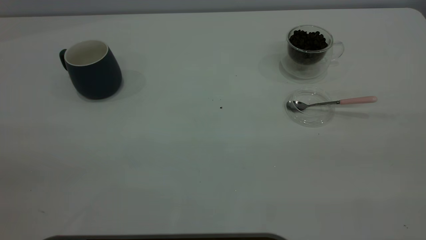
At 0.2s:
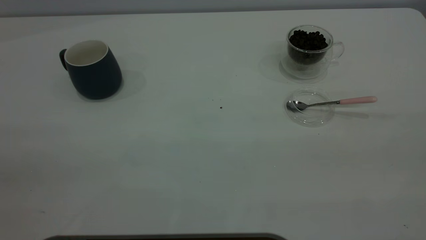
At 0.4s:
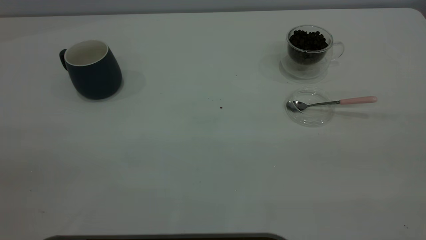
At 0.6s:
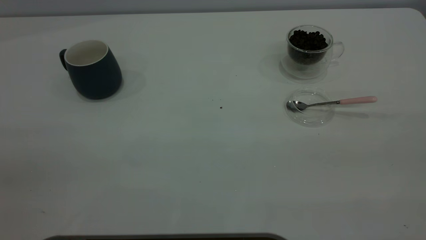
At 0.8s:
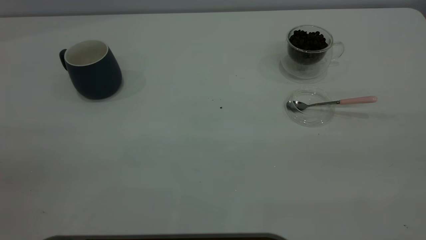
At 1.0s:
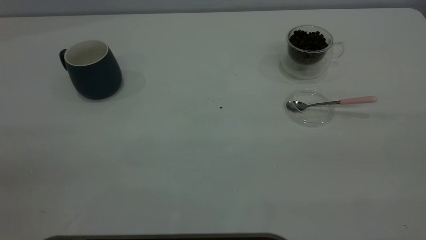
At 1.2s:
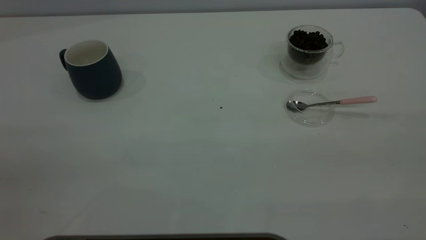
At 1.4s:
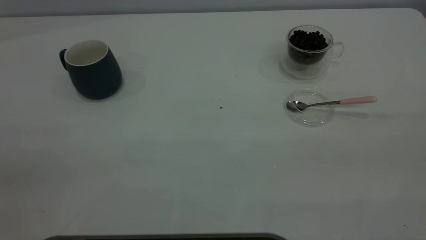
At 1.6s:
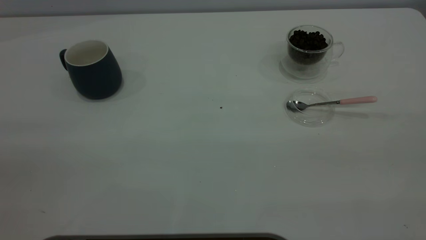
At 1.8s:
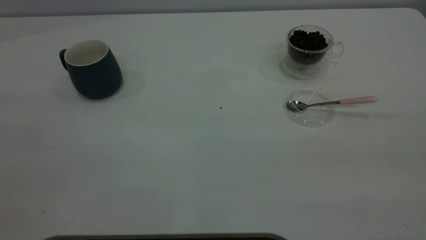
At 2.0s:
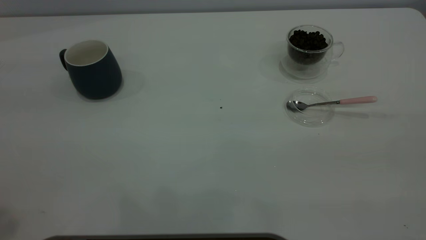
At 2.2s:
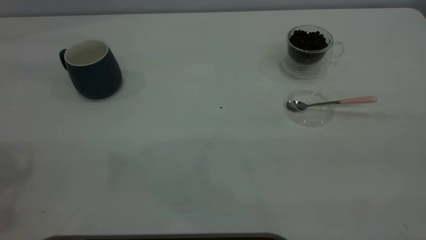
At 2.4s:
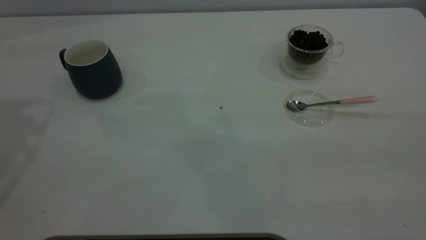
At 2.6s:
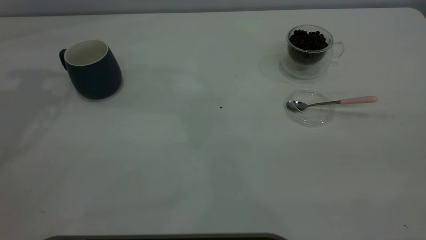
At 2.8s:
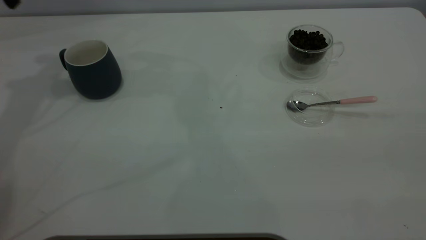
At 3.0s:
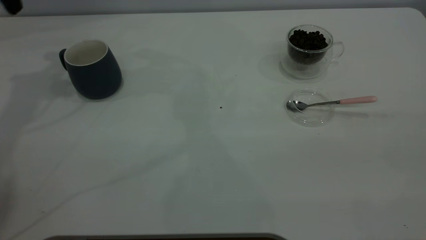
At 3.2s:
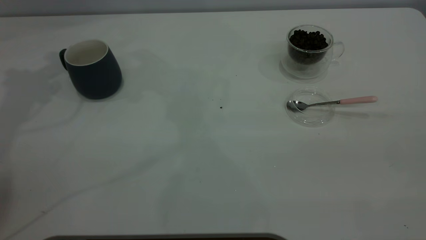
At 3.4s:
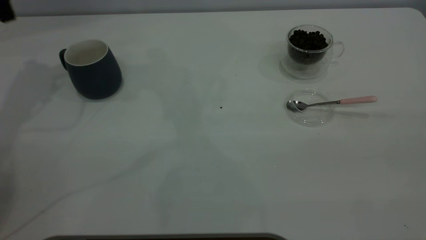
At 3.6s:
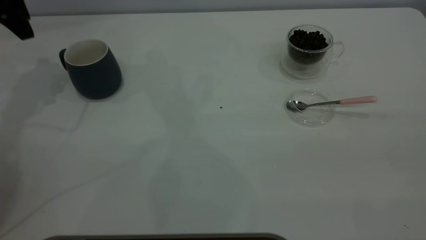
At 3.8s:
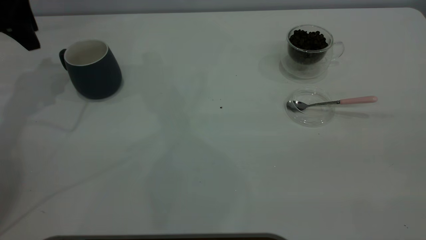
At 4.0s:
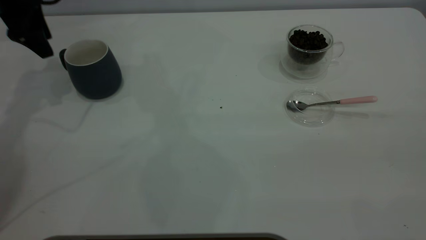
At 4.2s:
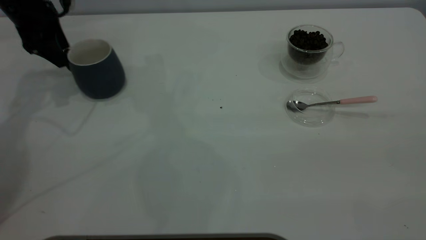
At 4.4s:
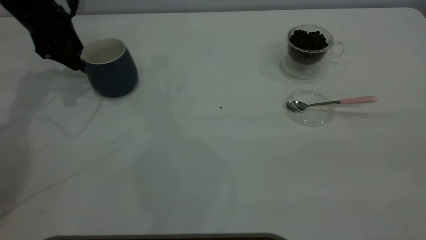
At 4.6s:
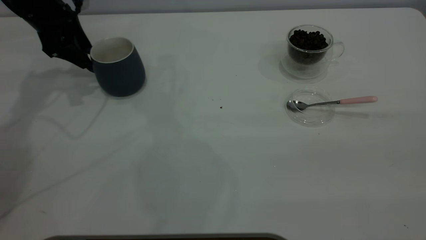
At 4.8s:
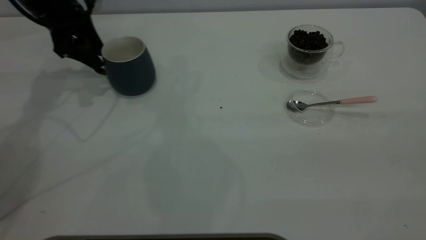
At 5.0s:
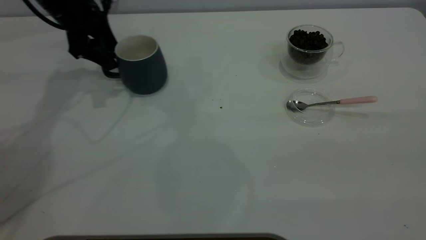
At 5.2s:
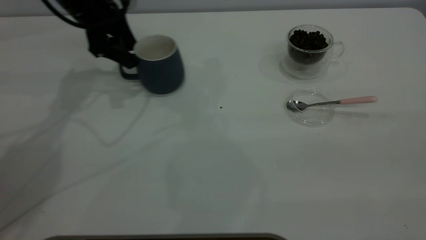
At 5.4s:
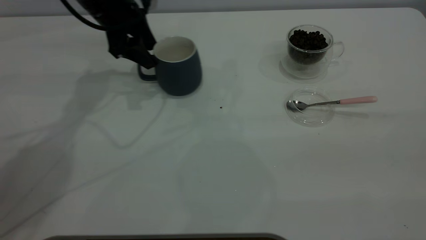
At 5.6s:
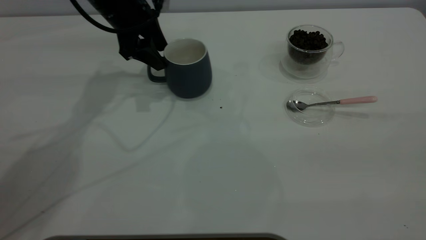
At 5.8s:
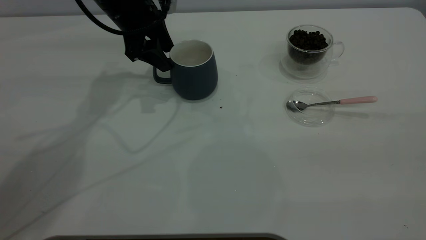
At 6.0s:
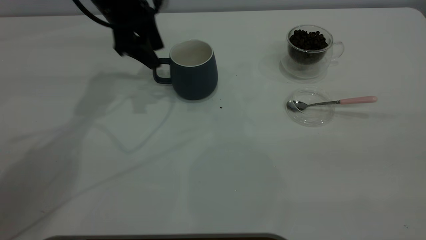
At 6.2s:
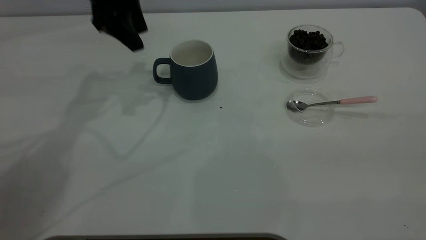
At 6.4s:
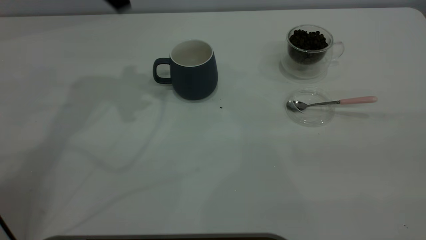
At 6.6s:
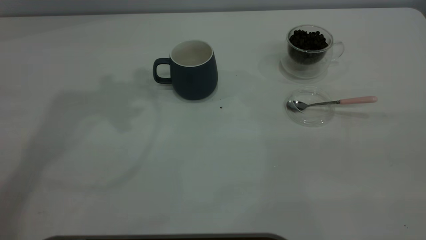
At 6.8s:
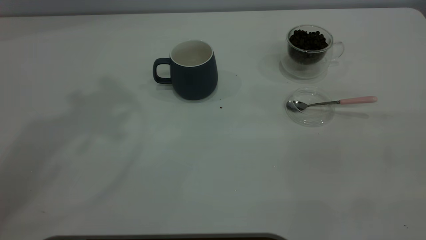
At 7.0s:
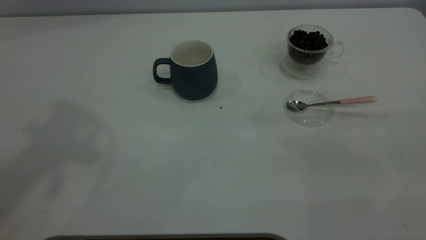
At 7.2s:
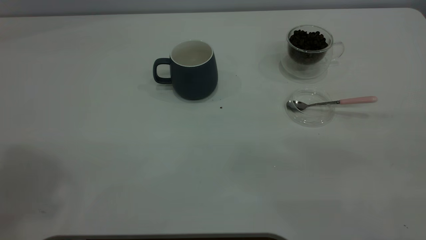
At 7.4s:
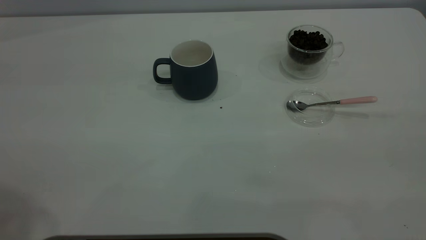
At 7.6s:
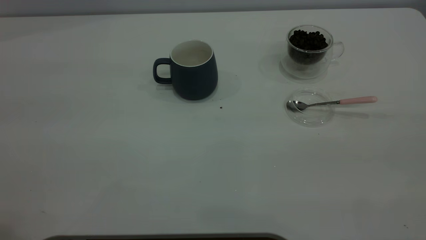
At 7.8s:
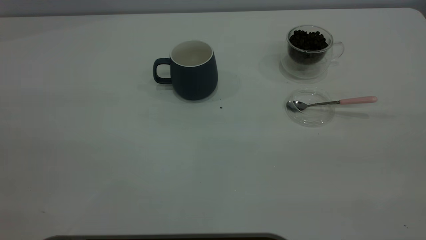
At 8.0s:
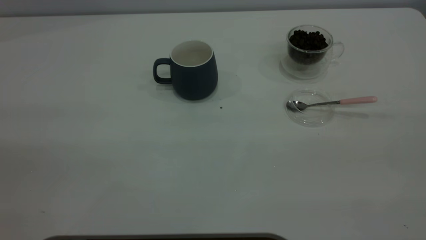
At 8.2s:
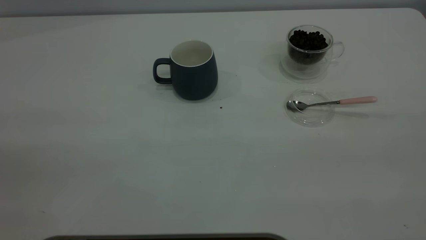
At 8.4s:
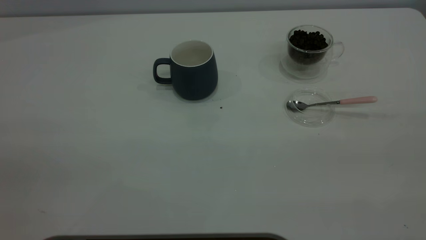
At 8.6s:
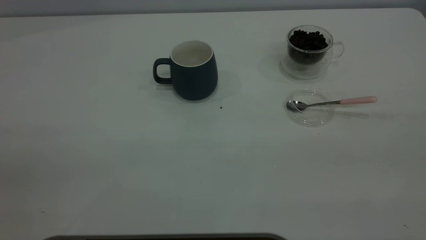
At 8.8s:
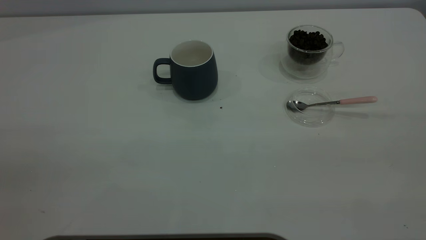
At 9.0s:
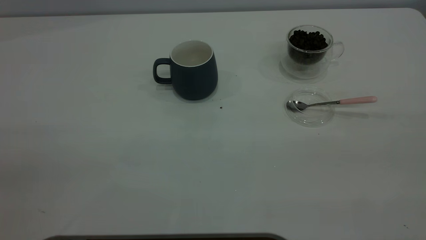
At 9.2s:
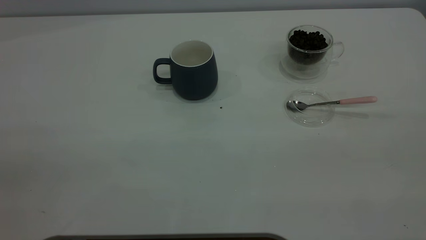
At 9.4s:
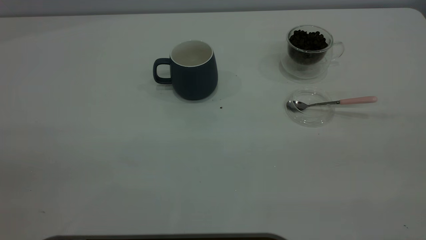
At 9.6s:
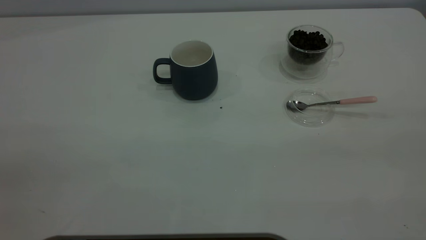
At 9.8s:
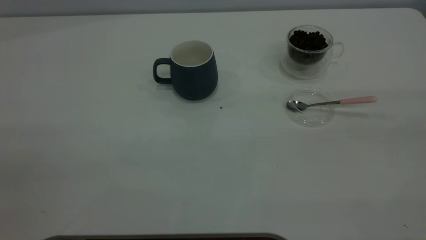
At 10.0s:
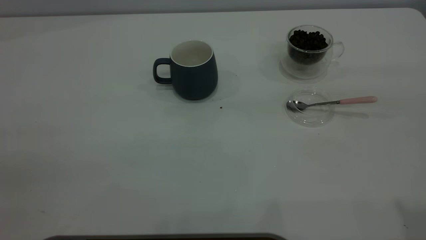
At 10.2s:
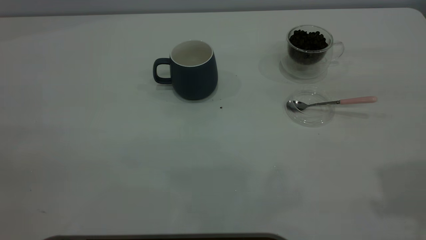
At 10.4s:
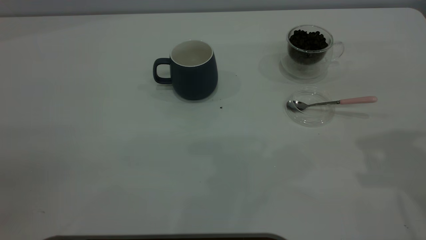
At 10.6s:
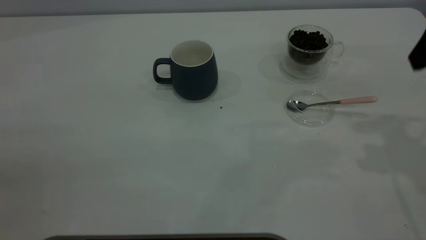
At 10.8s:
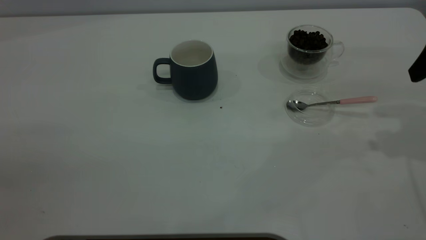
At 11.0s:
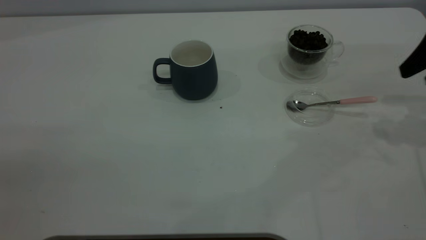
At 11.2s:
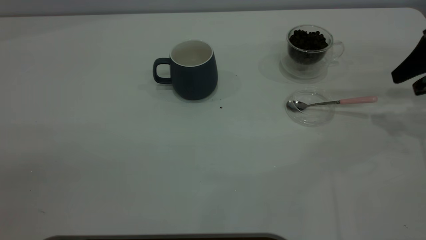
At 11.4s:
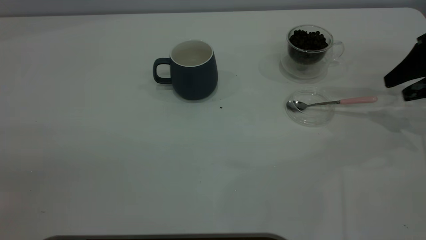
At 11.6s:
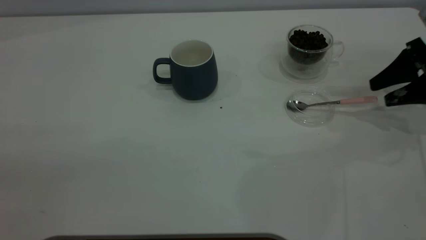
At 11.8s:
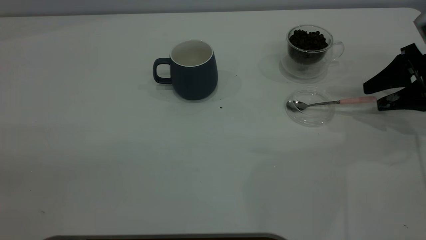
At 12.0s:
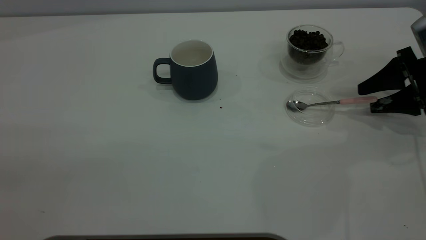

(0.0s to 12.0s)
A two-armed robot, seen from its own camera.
Task of the whole recording: the left gripper place the grey cup in the center of the table, the right gripper take the pink spoon from the cup lid and scoop out the coffee beans from the coffee cup and put them into the grey cup, the right gripper put the spoon back into the cup lid.
Step, 0.0s - 6.0s: Move the cup to the center of view.
3.0s - 4.4s: The left gripper is displaced downward by some 15 cm.
4.4s - 6.0s: The left gripper is displaced to the right by roughly 15 cm.
6.0s - 7.6s: The left gripper shifts roughly 40 cm backward and upward.
10.4s - 12.0s: The right gripper travels downward and forward by approximately 25 cm.

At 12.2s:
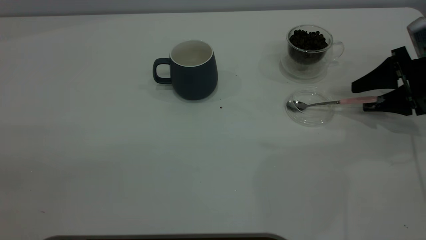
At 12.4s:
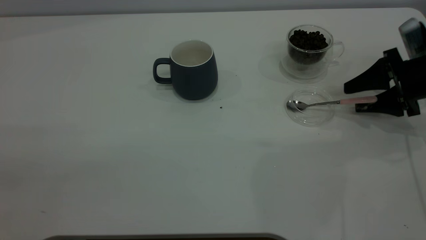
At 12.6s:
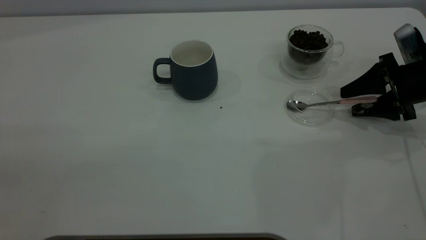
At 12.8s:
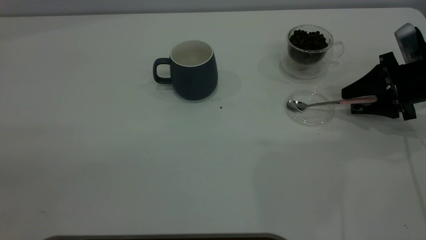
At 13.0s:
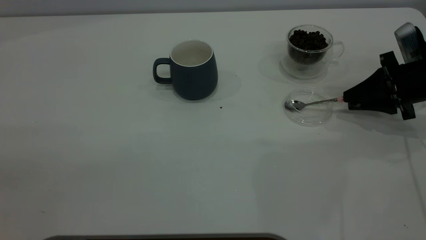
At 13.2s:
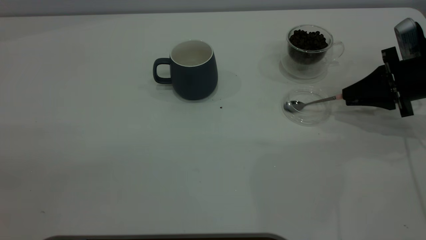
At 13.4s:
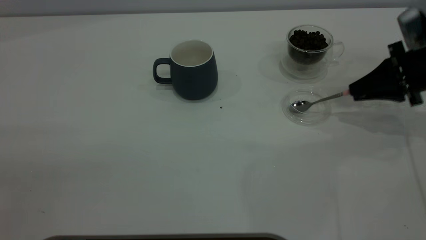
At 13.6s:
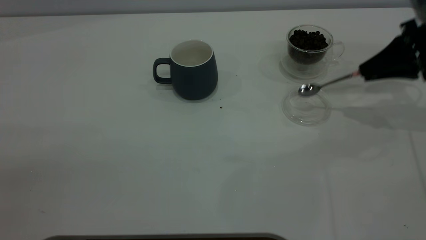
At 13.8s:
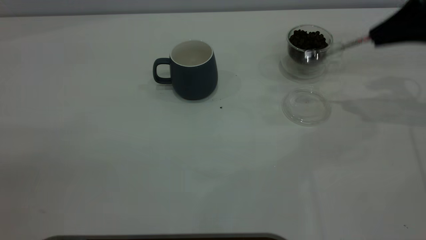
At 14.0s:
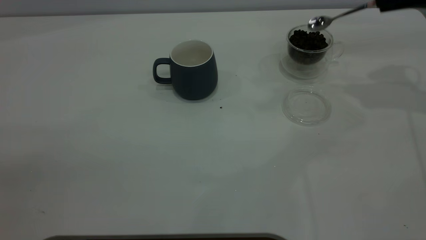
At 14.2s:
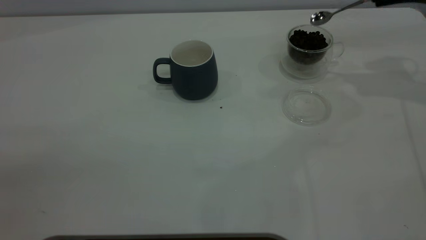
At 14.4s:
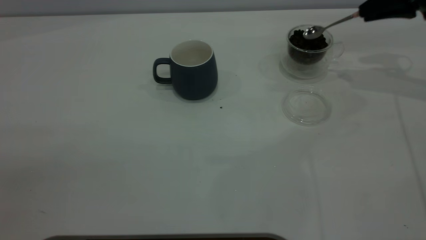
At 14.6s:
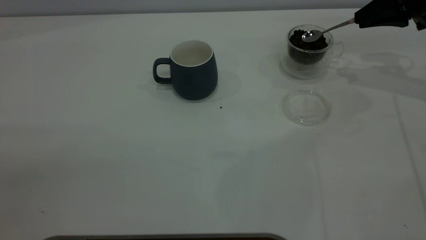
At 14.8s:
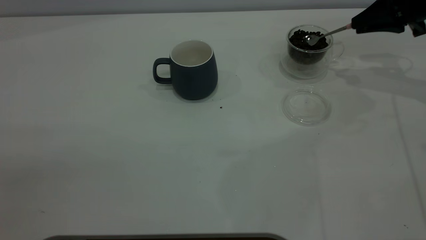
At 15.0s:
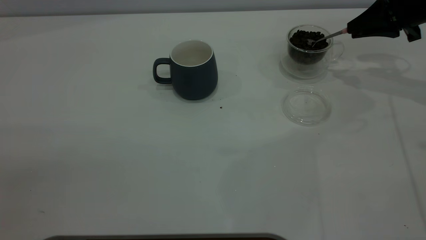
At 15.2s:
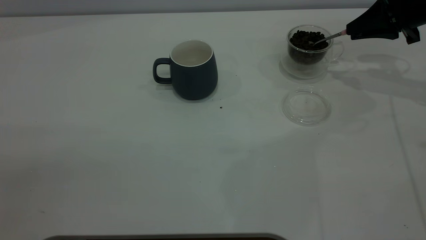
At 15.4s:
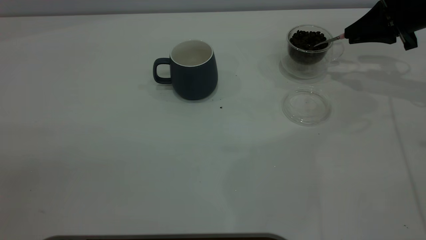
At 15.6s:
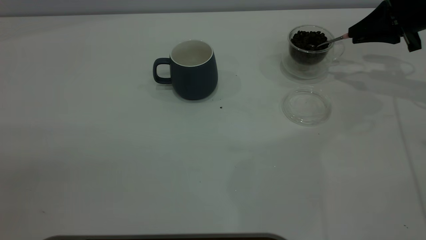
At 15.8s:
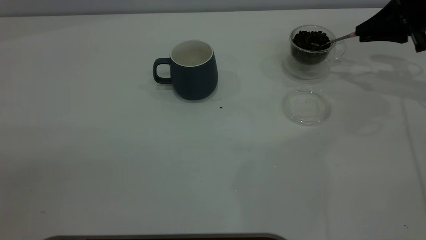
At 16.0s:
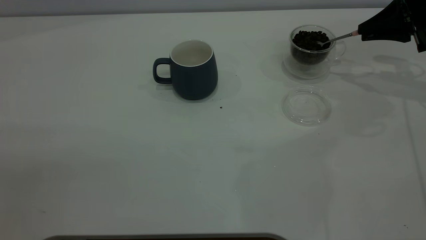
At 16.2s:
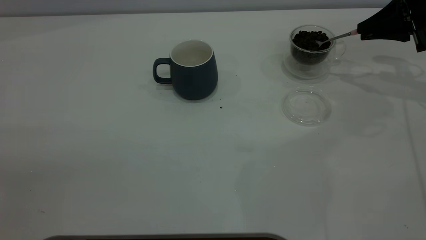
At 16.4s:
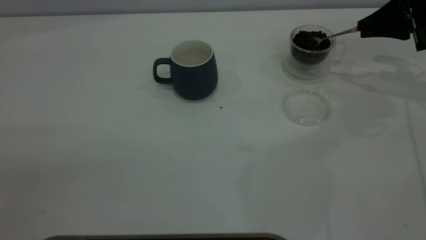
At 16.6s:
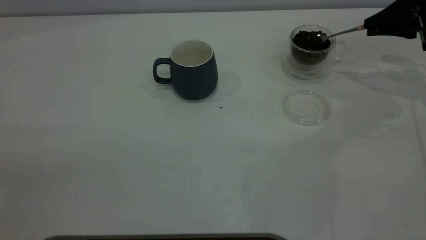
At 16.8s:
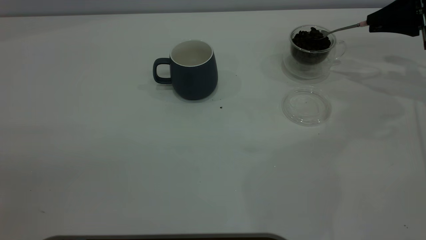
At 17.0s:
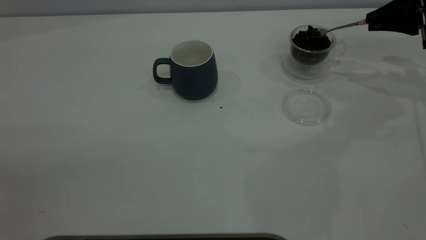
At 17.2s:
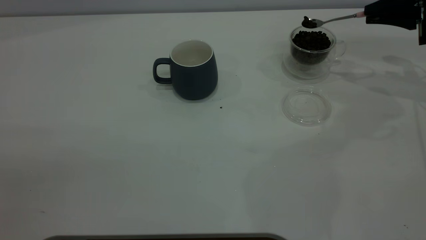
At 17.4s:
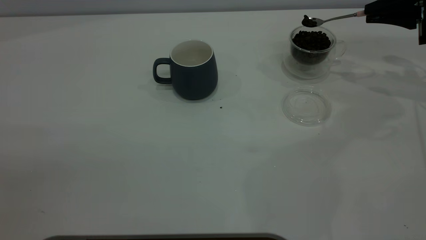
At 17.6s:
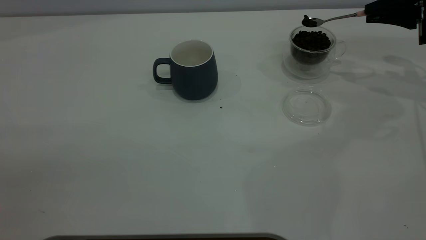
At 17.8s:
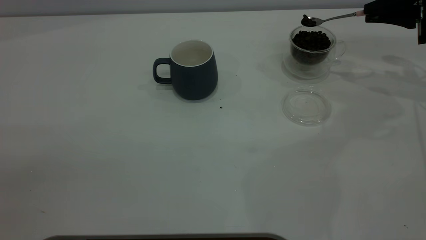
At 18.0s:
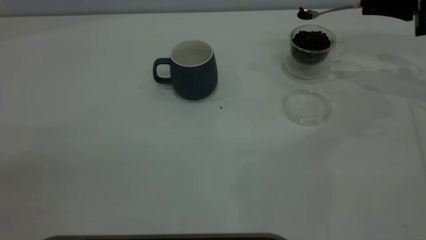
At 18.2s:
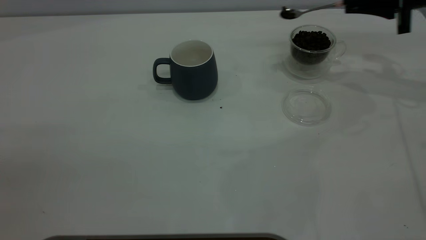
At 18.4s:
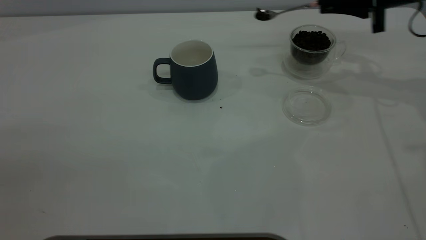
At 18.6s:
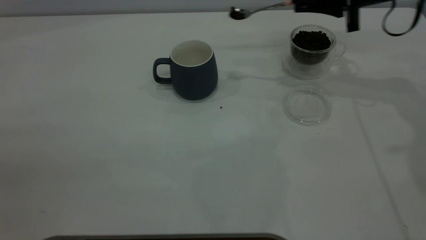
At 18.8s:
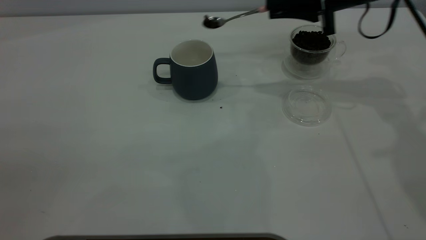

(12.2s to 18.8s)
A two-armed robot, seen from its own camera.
Task of the whole recording: the left gripper place the grey cup in the center of the table, the right gripper take the pink spoon from the cup lid and scoop out the coffee beans from the coffee cup and put them into the grey cup, the right gripper put the spoon back into the cup lid.
12.2s - 13.8s: The right gripper shifts approximately 15 cm upward, and closes.
13.8s - 15.4s: The right gripper moves forward and downward, some 10 cm.
15.4s - 17.2s: The grippers move only a little.
17.2s - 18.8s: The right gripper moves to the left, roughly 15 cm.
